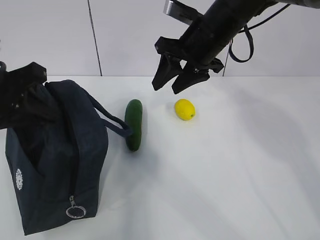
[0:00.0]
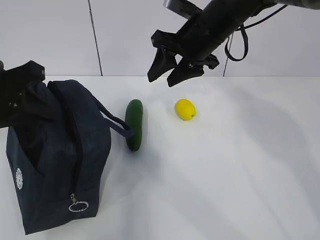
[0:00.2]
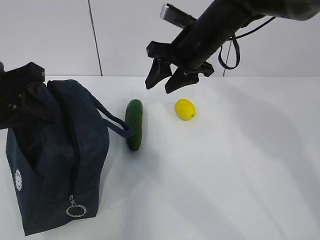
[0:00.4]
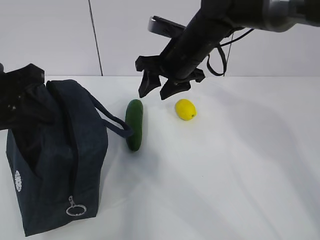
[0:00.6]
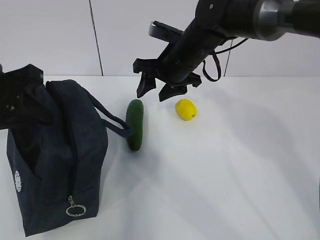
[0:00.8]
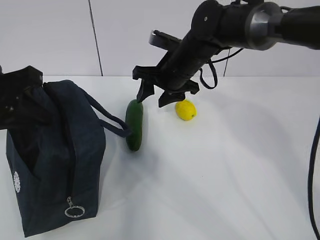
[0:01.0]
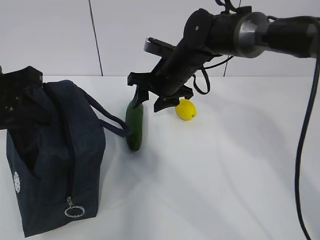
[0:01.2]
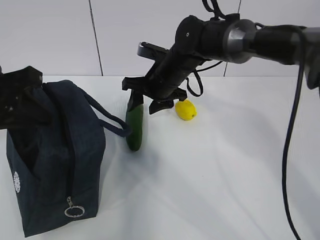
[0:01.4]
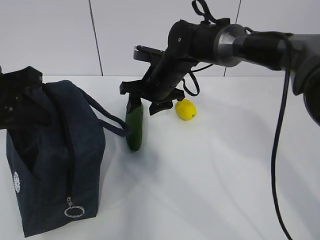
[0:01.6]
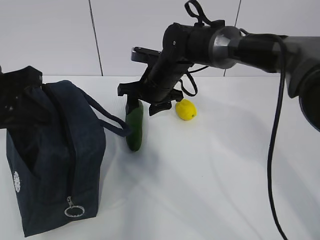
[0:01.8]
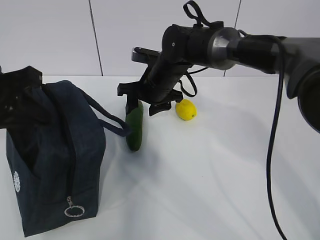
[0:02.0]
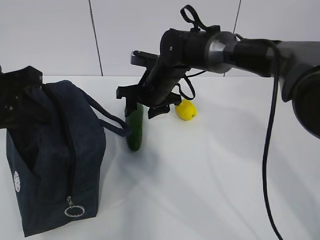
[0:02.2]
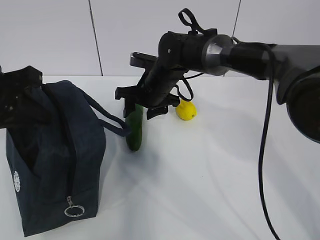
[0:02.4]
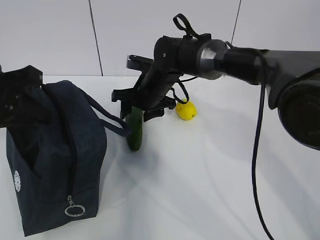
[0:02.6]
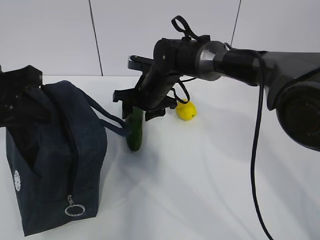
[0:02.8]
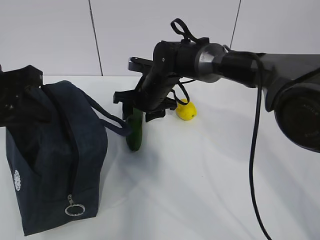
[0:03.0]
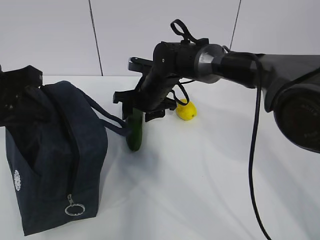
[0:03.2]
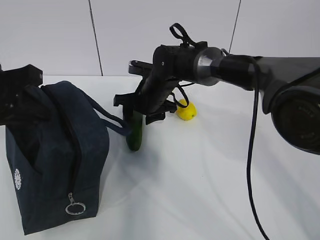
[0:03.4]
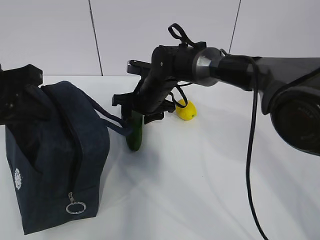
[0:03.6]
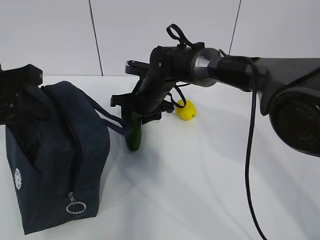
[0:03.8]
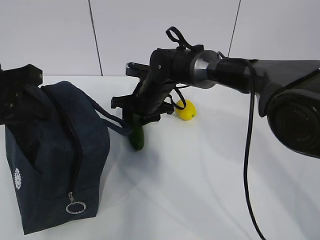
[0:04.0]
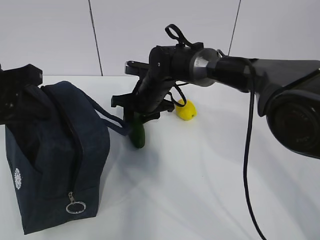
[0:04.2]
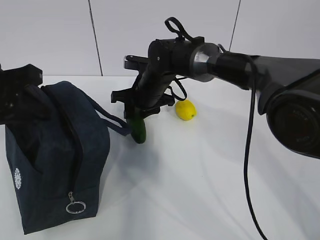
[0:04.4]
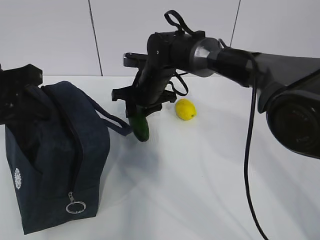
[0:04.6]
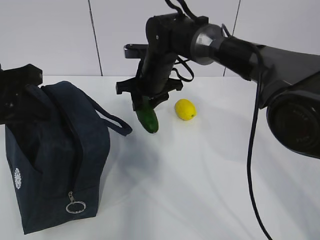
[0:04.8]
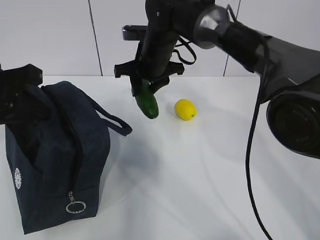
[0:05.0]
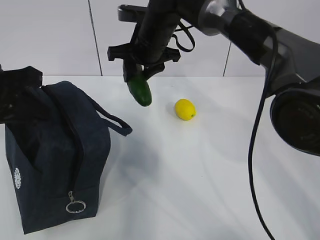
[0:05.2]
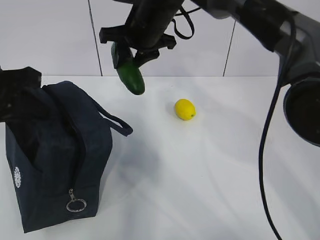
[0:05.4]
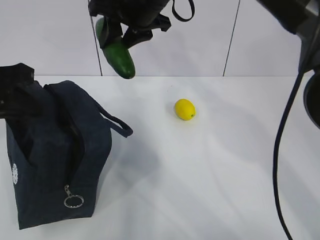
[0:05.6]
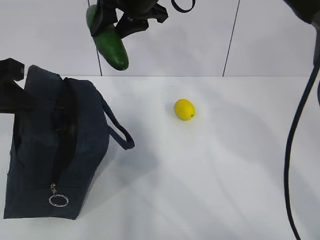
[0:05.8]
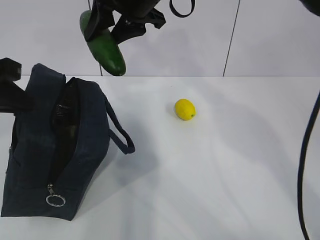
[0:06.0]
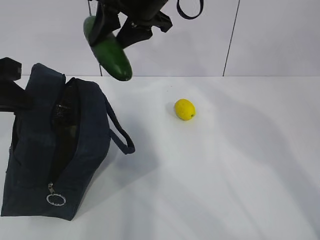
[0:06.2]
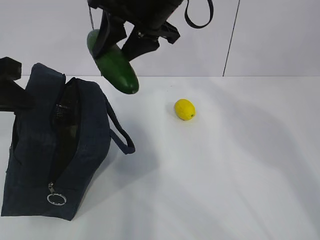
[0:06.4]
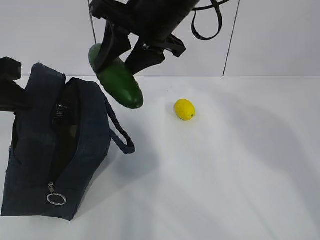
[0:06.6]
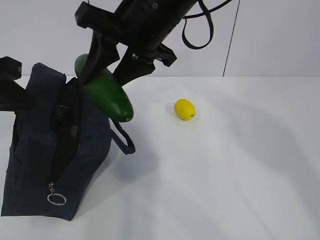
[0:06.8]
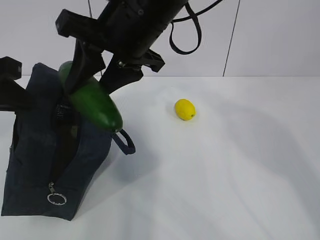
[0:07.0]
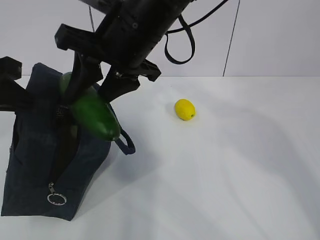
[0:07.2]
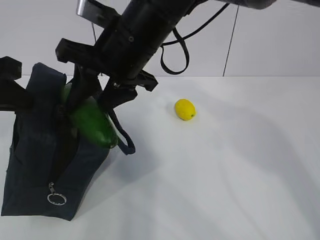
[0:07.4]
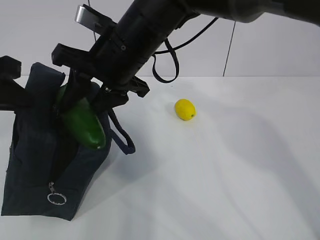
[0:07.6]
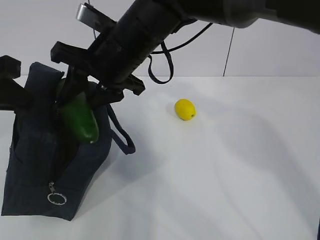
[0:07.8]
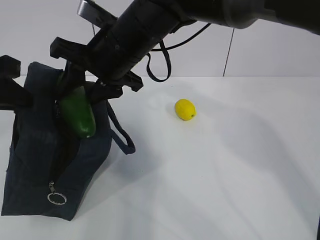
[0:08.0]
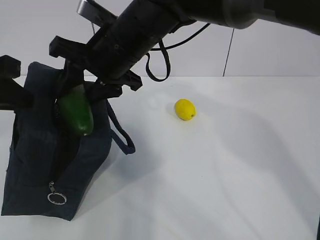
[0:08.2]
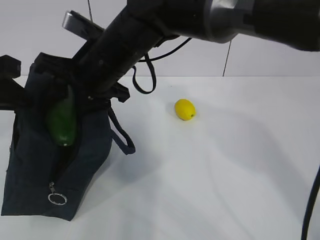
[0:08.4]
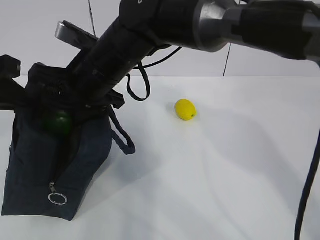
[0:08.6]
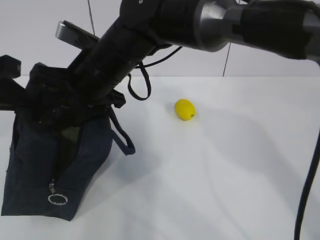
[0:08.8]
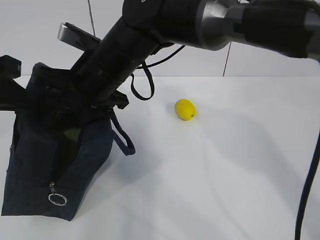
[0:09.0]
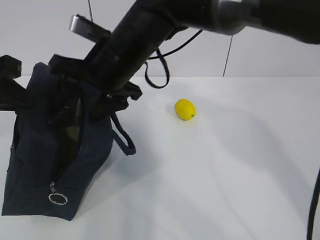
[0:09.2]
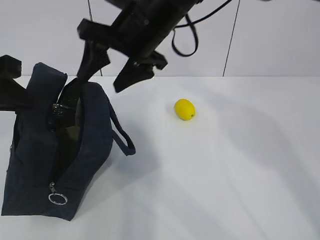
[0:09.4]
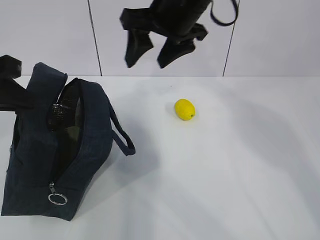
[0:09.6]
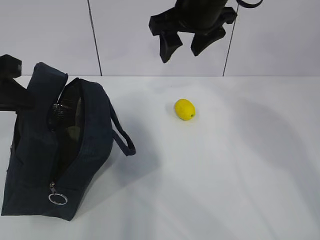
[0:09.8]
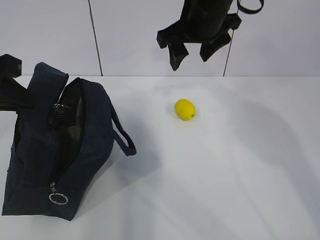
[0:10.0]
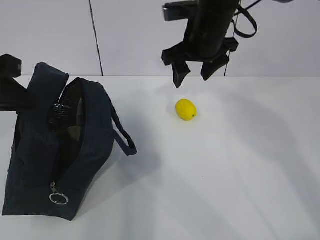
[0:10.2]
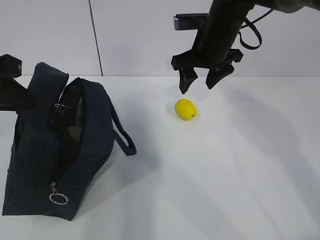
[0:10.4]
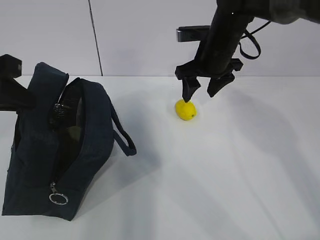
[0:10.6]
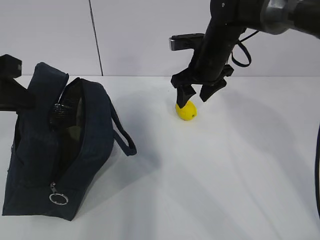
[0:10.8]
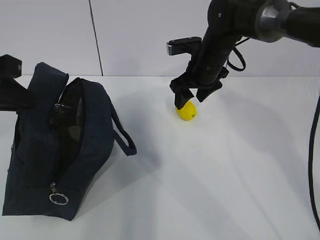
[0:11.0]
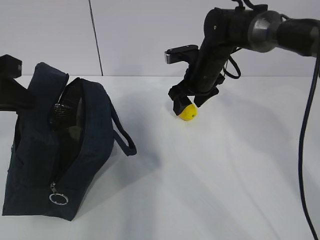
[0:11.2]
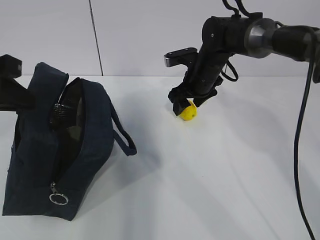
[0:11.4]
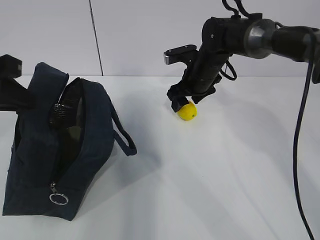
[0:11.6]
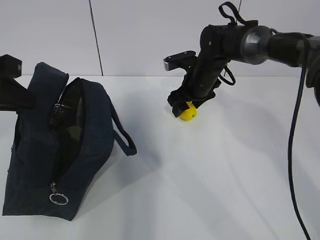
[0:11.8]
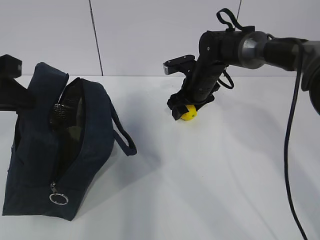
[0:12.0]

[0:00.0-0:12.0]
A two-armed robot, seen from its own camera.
Step, 0:00.0 to 0:03.2: Place it into the bag with your right hand.
Step, 0:03.4 to 0:06.2: Grab the lemon with your right hand.
0:00.0 to 0:01.6: The right gripper is displaced downward and to the left by some 15 cm.
0:01.6 to 0:03.0: The grippers move only a little.
0:03.0 to 0:04.4: Neither gripper changes place.
0:04.4 to 0:06.0: The right gripper heads upward, covering about 20 cm.
0:06.0 to 0:07.6: The right gripper goes about 10 cm backward and downward.
0:07.6 to 0:09.0: The right gripper opens its fingers.
0:09.0 to 0:10.4: The right gripper goes approximately 20 cm to the right and forward.
0:10.4 to 0:12.0: The right gripper shifts roughly 10 cm downward.

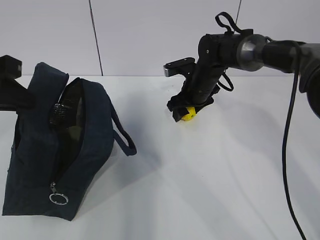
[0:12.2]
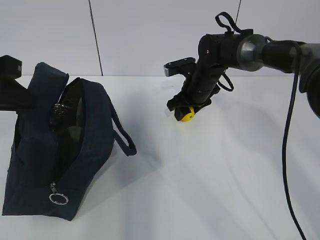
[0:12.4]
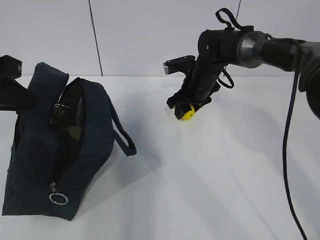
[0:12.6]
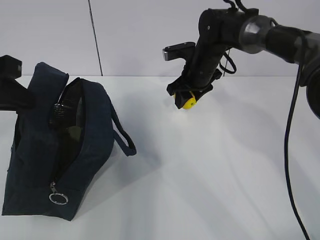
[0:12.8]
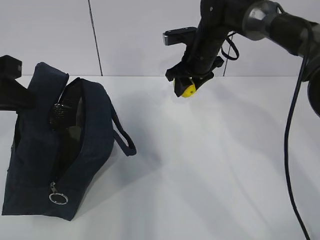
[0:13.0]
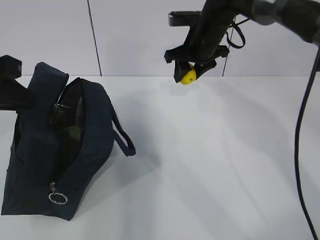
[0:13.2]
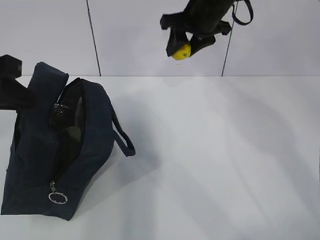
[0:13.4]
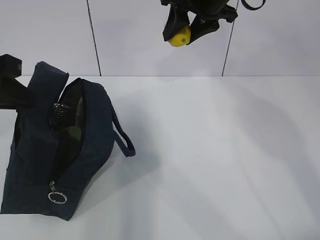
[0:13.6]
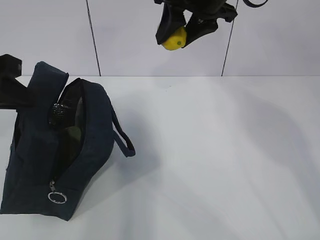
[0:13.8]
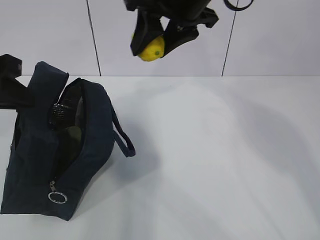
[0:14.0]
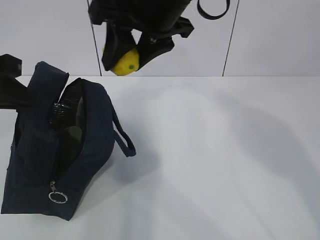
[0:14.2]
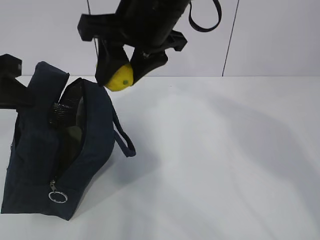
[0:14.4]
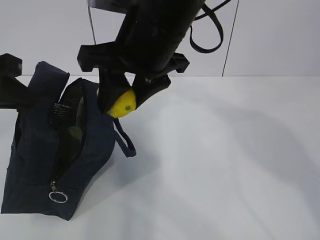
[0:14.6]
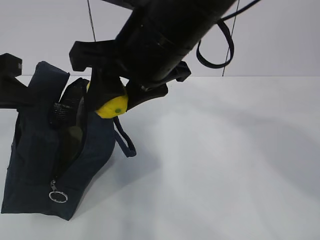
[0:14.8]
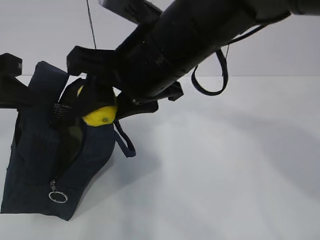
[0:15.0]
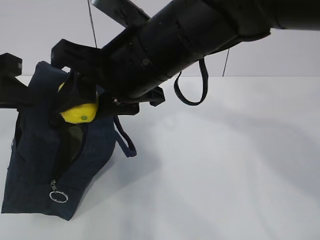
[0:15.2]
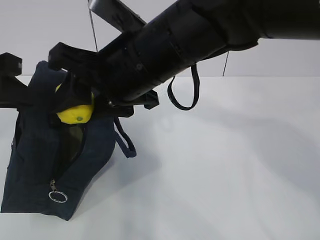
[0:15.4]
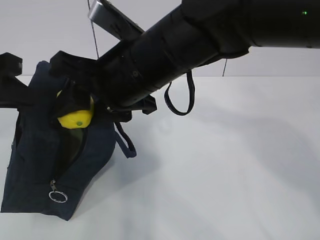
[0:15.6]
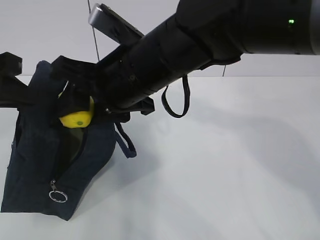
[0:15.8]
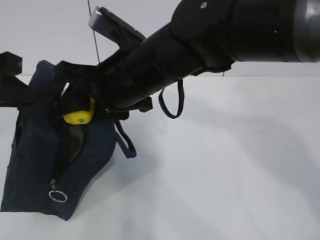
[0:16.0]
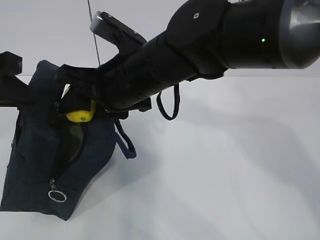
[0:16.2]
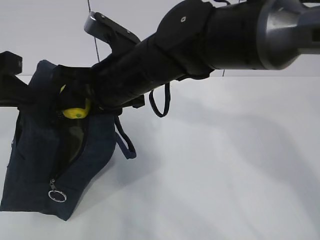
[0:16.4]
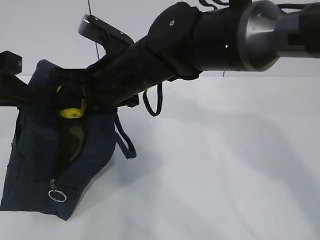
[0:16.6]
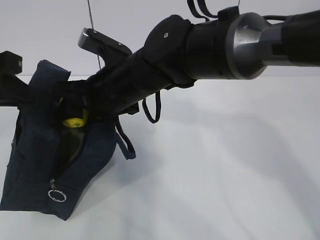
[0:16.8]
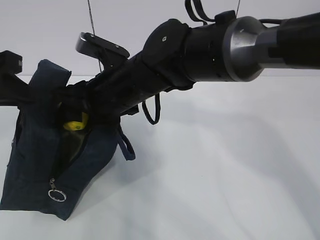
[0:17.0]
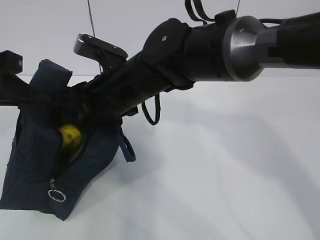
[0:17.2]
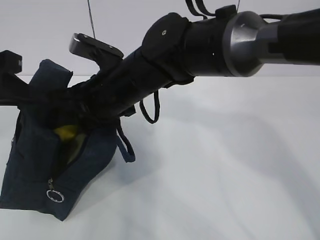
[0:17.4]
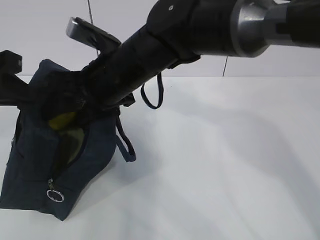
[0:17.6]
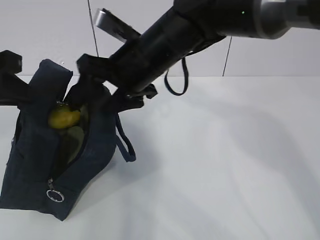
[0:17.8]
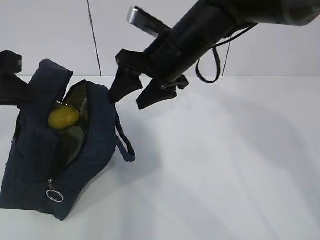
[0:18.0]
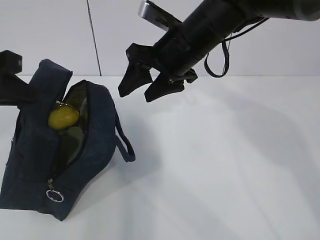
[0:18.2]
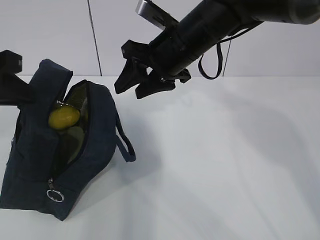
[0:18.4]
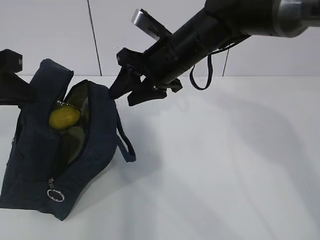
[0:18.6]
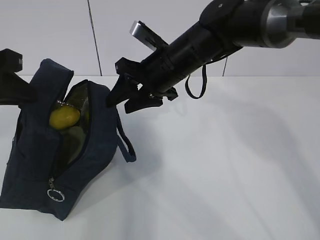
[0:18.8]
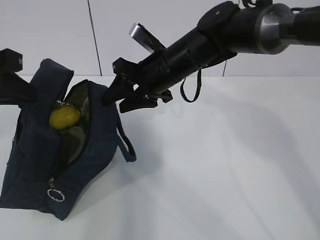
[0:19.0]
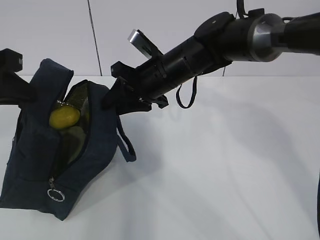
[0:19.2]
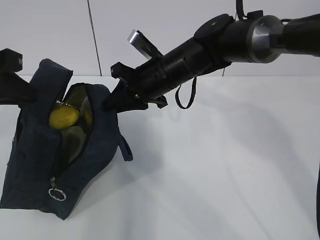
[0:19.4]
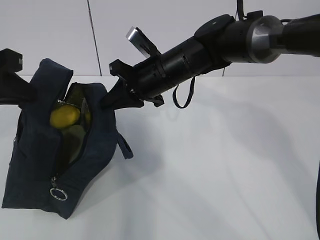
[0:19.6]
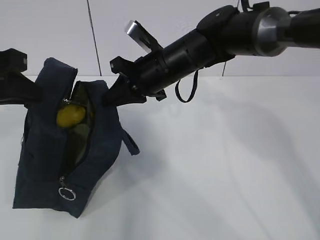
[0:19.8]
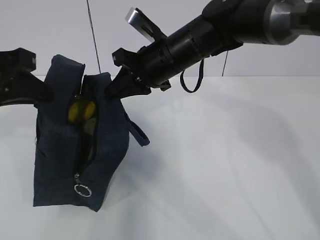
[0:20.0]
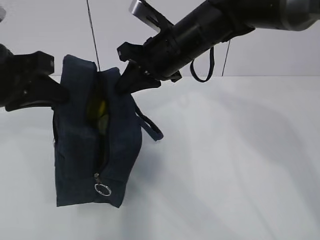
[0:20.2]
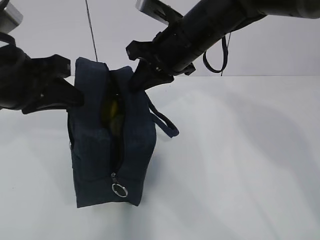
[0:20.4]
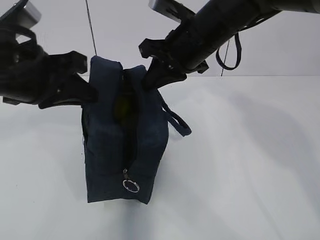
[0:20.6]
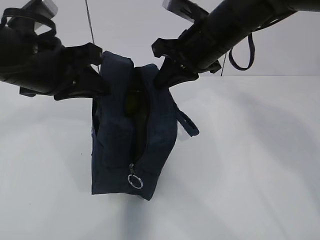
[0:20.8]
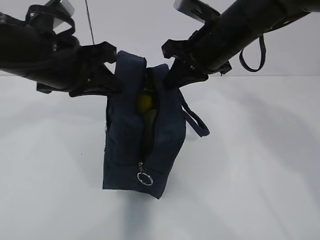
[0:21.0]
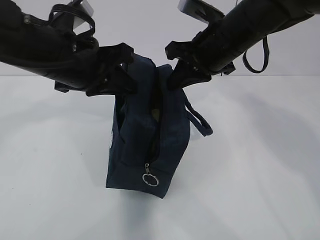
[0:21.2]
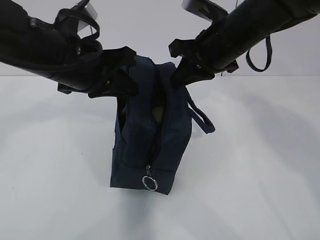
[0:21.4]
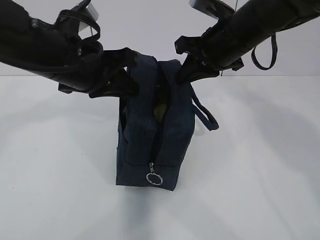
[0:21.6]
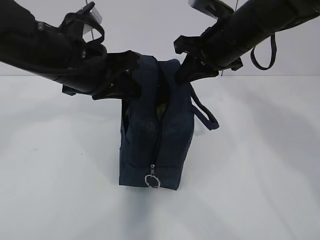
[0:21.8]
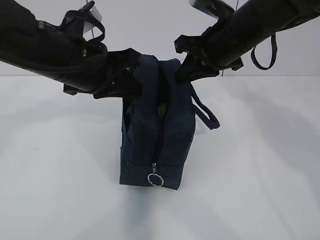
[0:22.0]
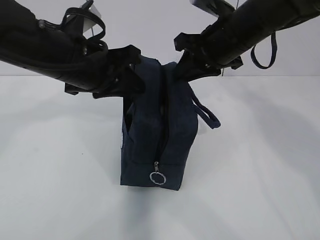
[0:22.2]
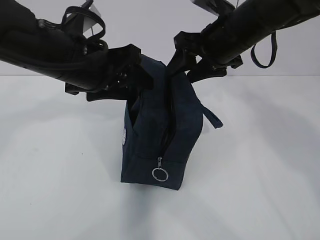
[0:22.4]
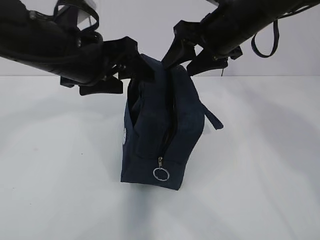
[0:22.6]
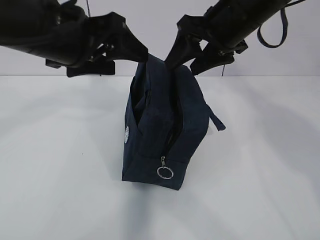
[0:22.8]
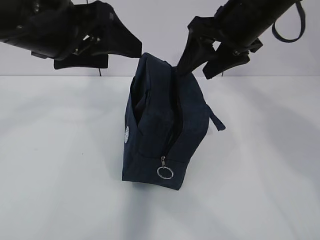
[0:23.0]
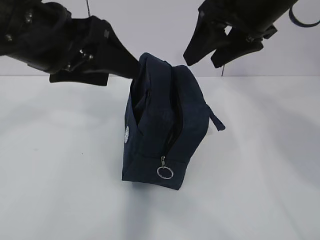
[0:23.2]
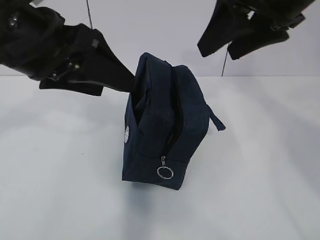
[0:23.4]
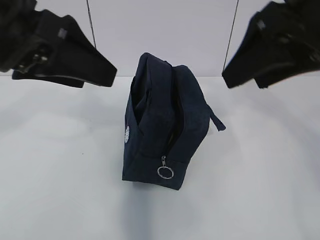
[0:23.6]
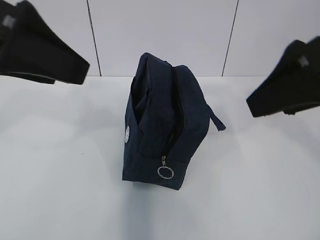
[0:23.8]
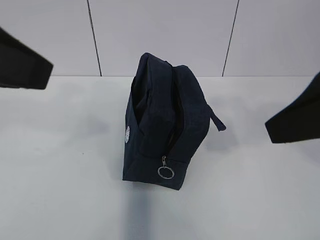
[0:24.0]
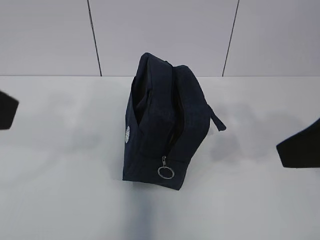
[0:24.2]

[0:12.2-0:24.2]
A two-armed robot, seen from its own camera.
Step, 0:12.2 to 0:14.6: Move the lunch bag to the right.
0:12.2 to 0:13.8: The right gripper moves upward and backward, roughly 25 cm.
0:13.8 to 0:15.2: The right gripper moves backward and to the left, some 15 cm.
0:15.2 to 0:16.6: The right gripper is displaced downward and forward by roughly 10 cm.
0:16.6 to 0:18.2: The right gripper is displaced to the right by approximately 10 cm.
0:18.2 to 0:19.8: The right gripper moves about 5 cm, and closes up.
0:19.8 to 0:21.2: The left gripper is displaced to the right by some 10 cm. Meanwhile the right gripper travels to the right and upward by roughly 10 cm.
0:21.2 to 0:22.6: The left gripper opens up; the right gripper opens up.
0:22.6 to 0:24.2: The right gripper goes approximately 25 cm backward; the left gripper heads backward, to the left and upward, covering approximately 20 cm.
